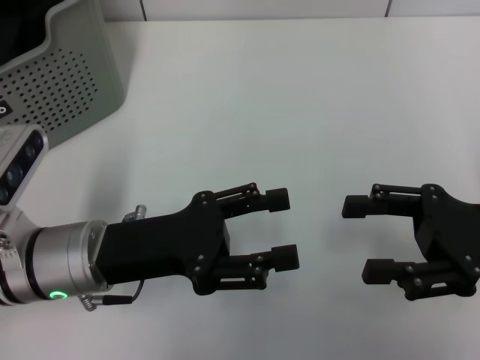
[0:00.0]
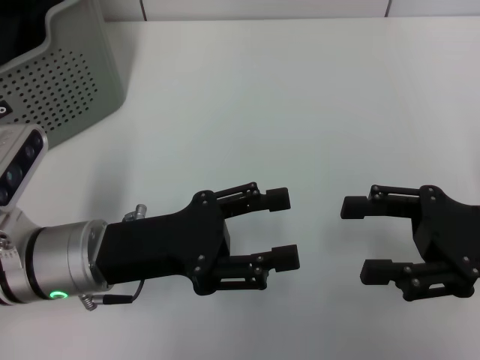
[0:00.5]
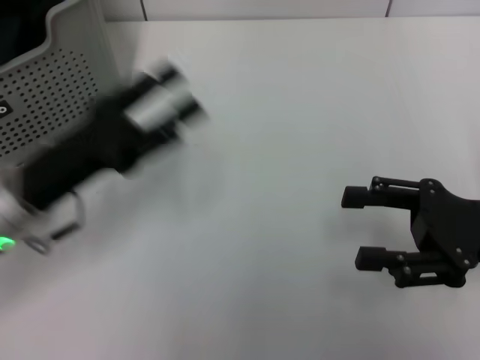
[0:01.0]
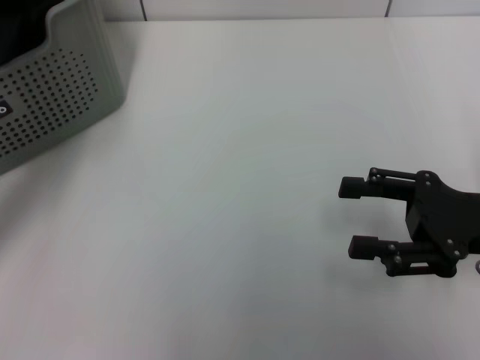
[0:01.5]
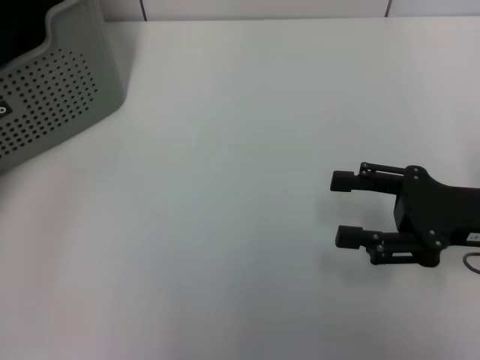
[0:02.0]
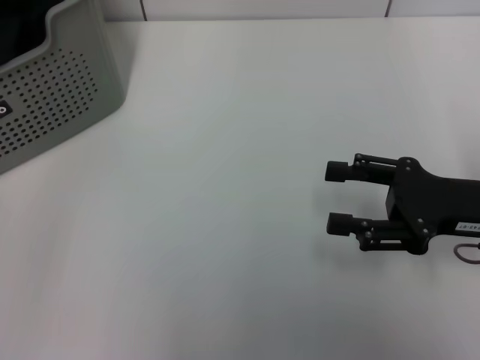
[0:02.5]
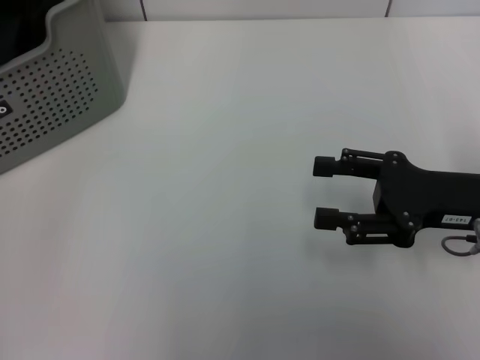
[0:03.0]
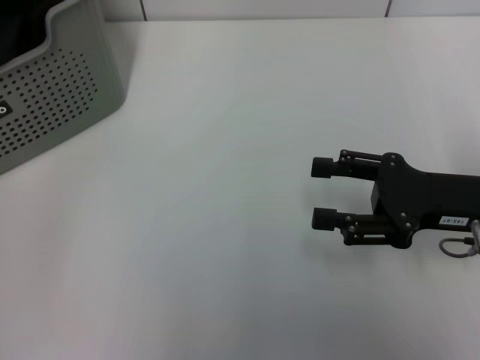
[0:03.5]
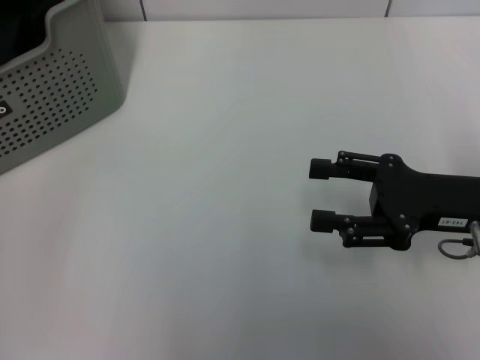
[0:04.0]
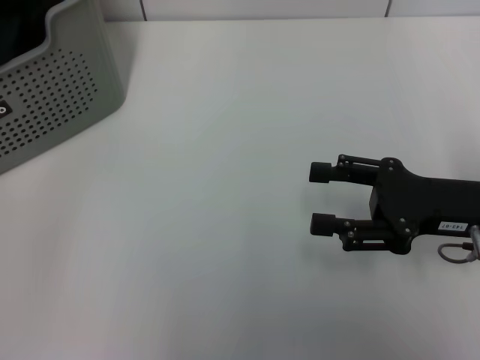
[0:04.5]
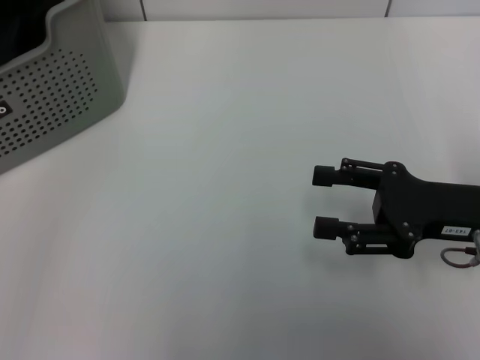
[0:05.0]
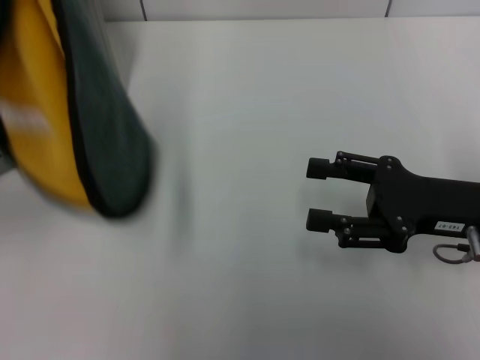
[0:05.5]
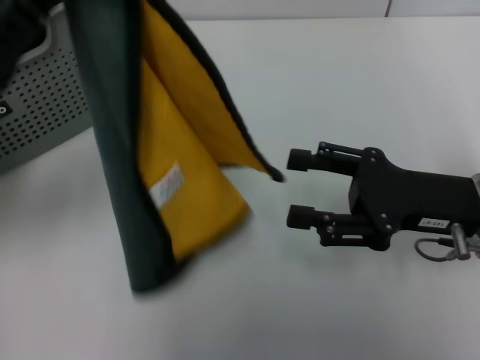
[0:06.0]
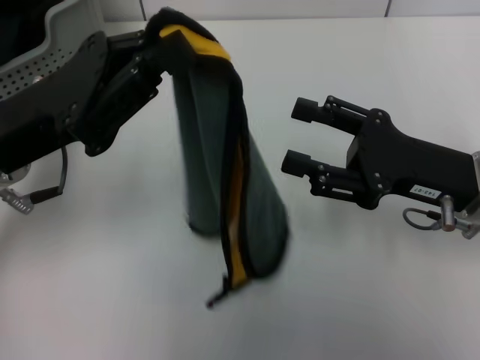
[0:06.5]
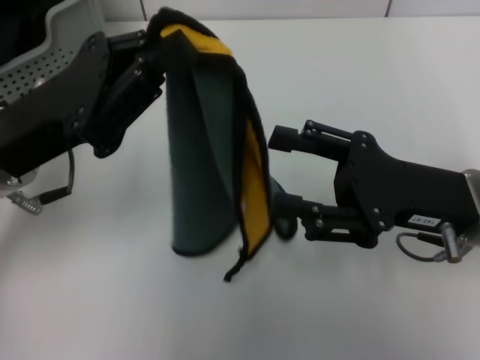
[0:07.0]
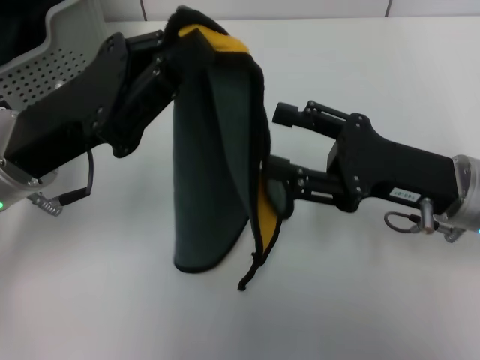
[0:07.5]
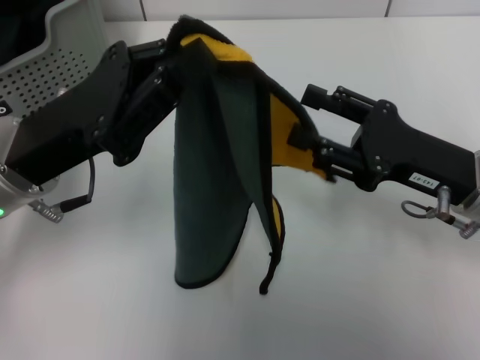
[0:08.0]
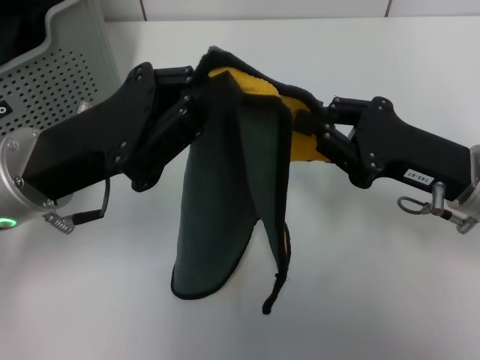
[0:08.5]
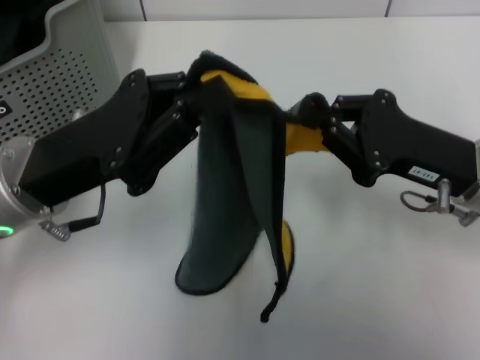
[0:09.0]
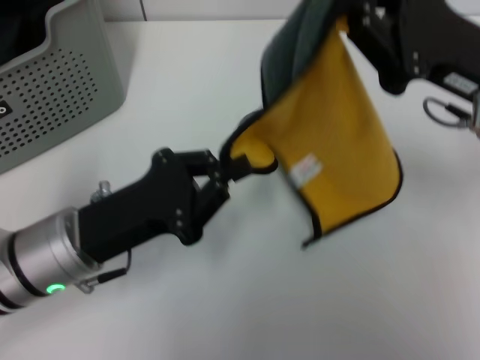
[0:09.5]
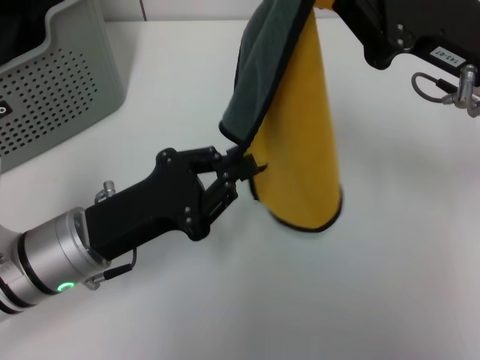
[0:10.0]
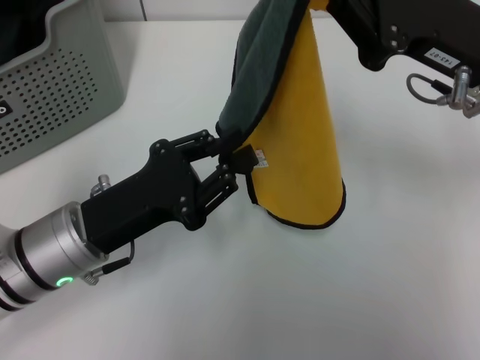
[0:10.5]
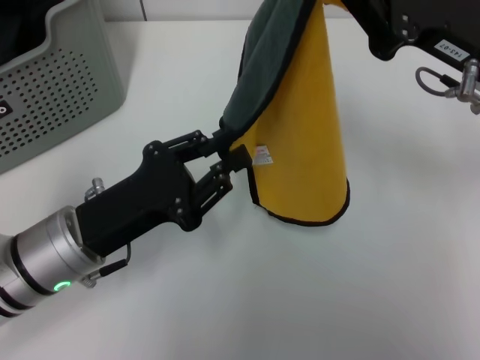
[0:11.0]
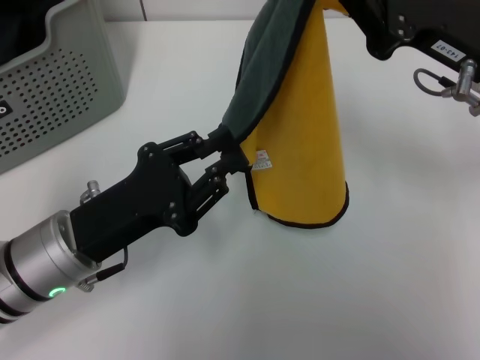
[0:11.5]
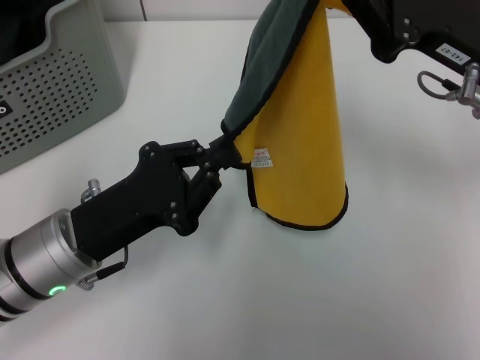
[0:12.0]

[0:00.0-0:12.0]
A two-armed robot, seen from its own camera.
Task of the whole recording: pick up the towel from the storage box and lay it flat on the table.
Step, 0:00.0 to 0:04.0: Pick up a towel with the left gripper.
Step, 0:04.5 to 0:08.5: Spread the towel flat with the left gripper.
0:00.0 to 0:02.0: The left gripper goes approximately 20 cm to the left, upward and forward.
0:02.0 to 0:04.0: The left gripper travels to the left by some 10 cm.
0:04.0 to 0:06.0: The left gripper is displaced to the right and backward by approximately 15 cm, and closes up.
0:06.0 to 0:08.0: The left gripper travels to the right by approximately 5 cm.
0:08.0 to 0:10.0: The right gripper heads upward, covering roughly 10 cm, and closes its fingers. Meanwhile the left gripper heads downward, covering approximately 10 cm.
0:10.0 to 0:12.0: The grippers move only a little.

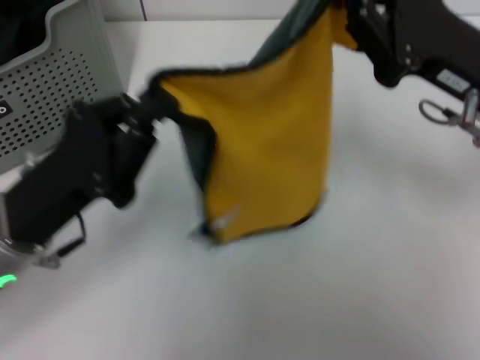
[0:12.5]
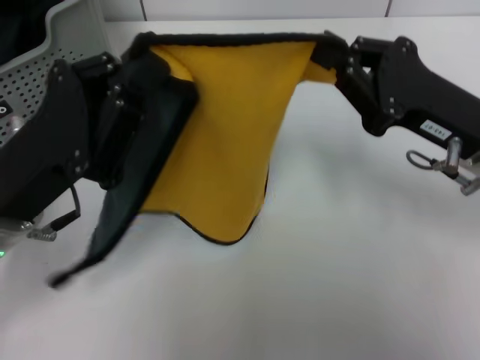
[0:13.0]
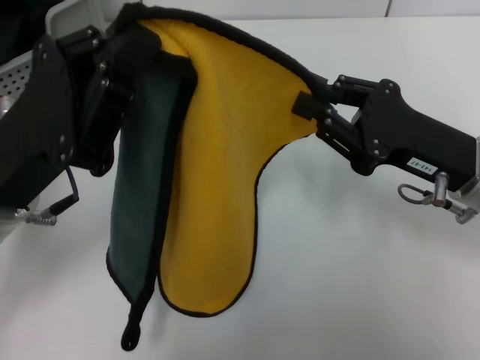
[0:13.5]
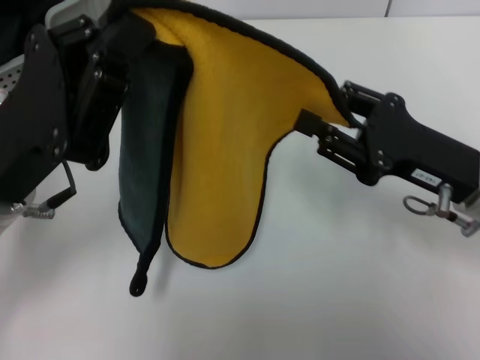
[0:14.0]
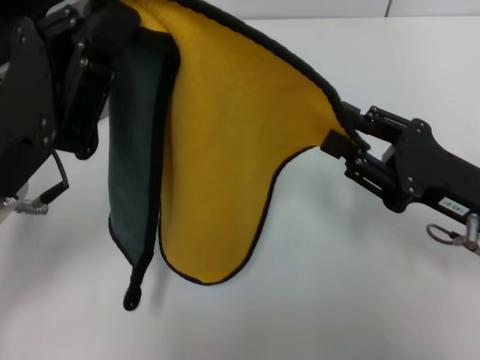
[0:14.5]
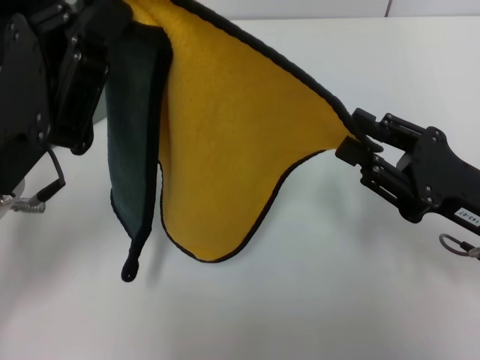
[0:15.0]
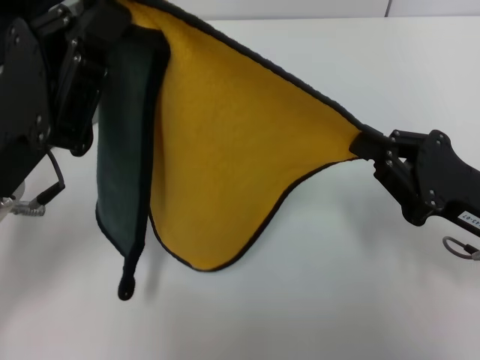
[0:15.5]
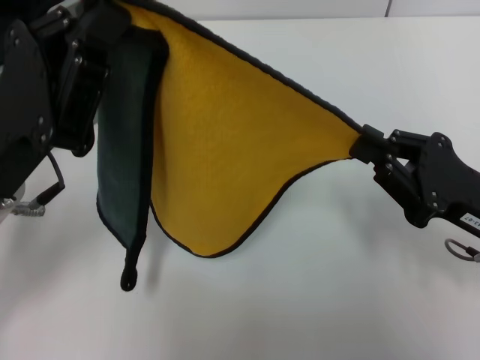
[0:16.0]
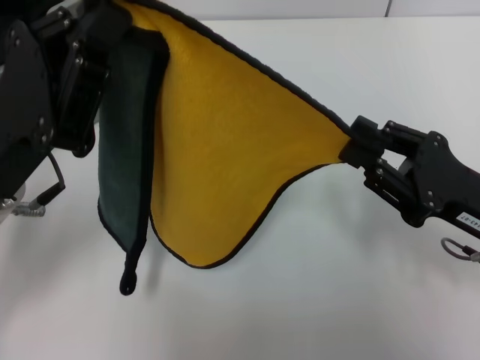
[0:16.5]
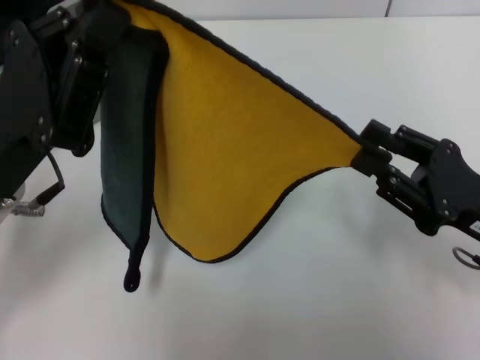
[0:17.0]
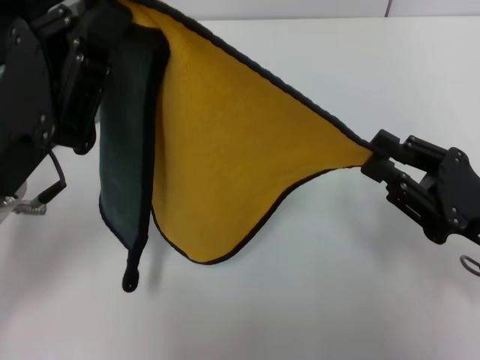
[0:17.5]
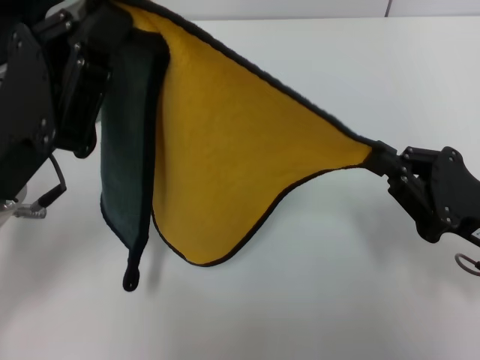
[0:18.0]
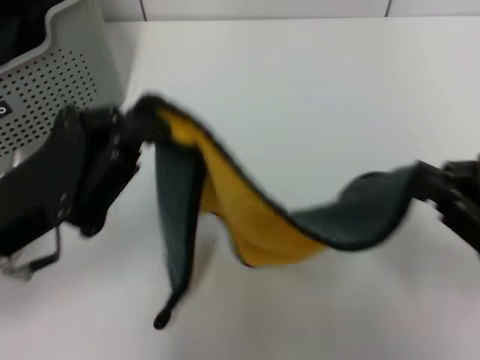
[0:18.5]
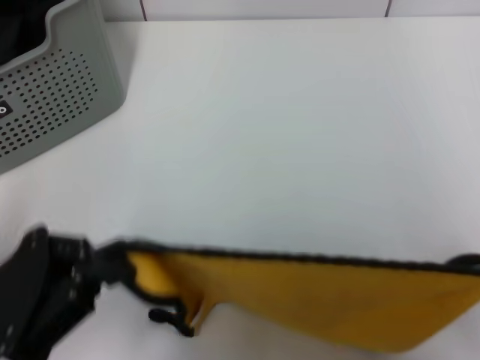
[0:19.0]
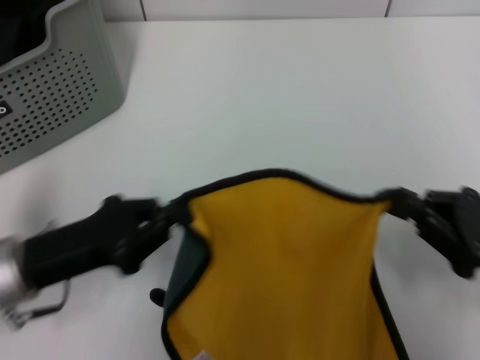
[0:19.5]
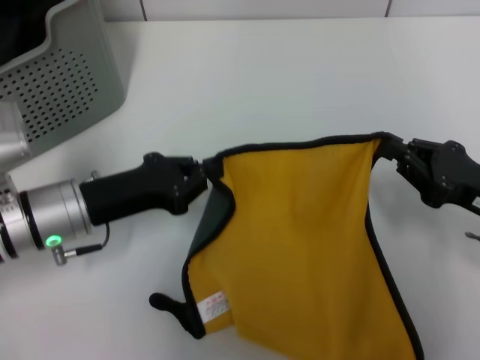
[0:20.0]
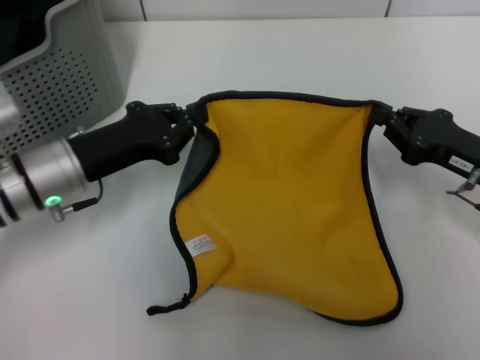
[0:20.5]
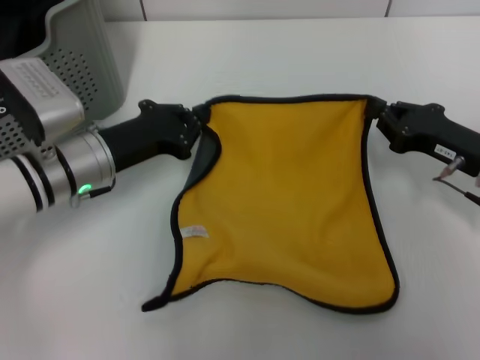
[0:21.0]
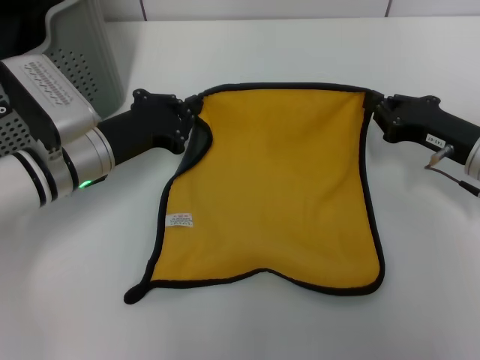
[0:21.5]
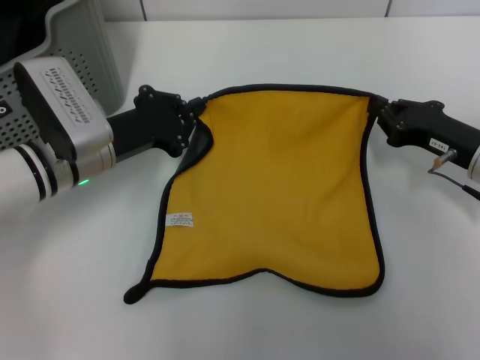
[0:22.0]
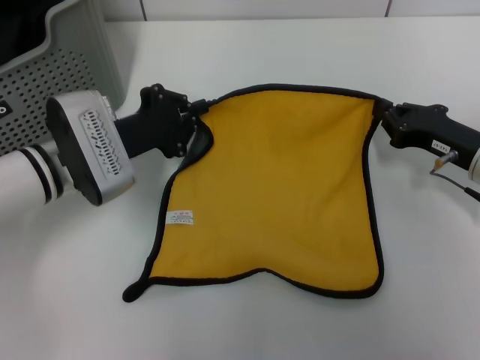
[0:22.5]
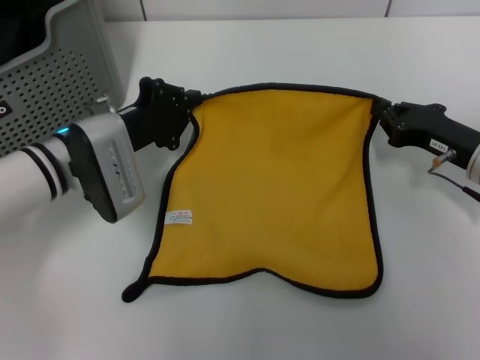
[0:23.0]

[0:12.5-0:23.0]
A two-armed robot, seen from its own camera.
Task of the whole recording: pick up the towel from the storage box and lay it flat on the table.
0:12.5 to 0:14.5: The right gripper goes roughly 10 cm downward and backward, and opens its fingers, while the left gripper changes place by approximately 5 cm.
0:14.5 to 0:16.5: The right gripper closes up.
0:16.5 to 0:19.0: The right gripper shifts roughly 10 cm to the right and backward, while the left gripper goes approximately 10 cm backward and to the left.
0:19.0 to 0:21.0: The two grippers go approximately 15 cm forward.

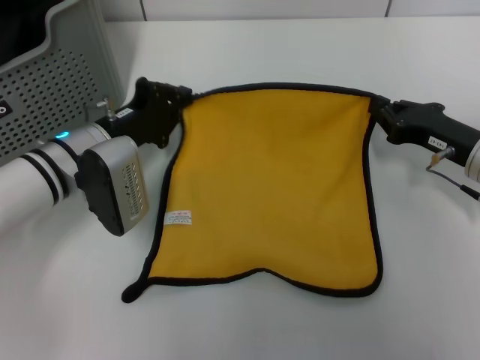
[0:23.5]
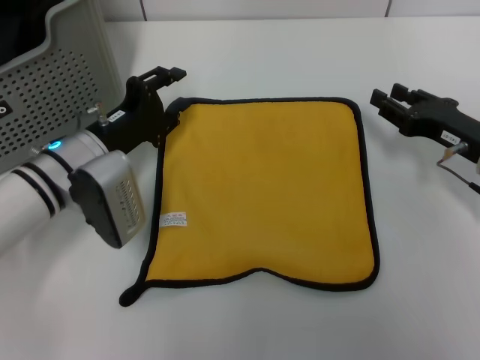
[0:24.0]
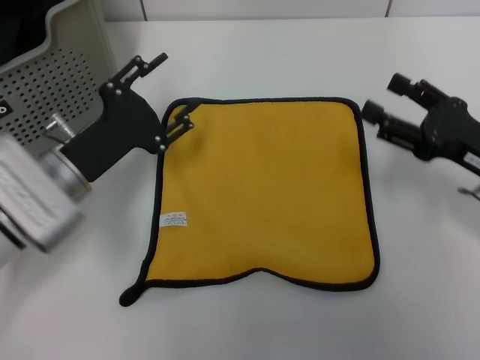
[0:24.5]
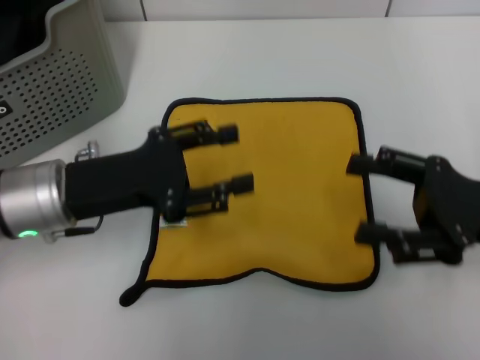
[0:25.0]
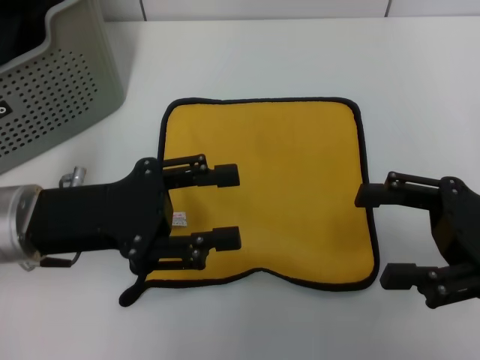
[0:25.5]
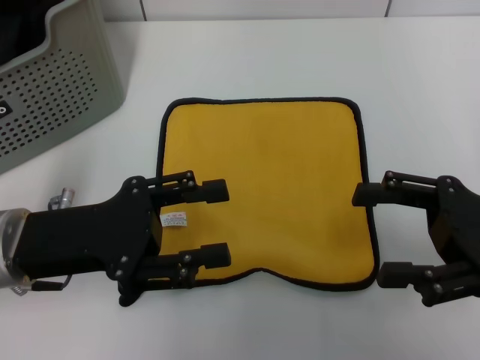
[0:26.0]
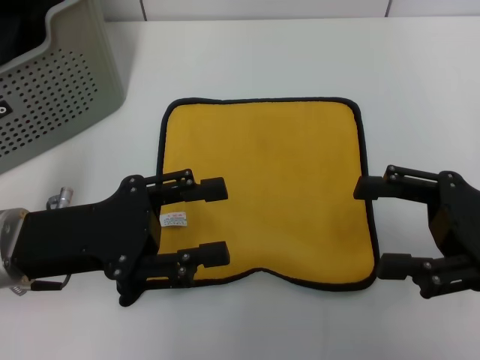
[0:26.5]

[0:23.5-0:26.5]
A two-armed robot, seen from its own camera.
Task of the whole recording: pick up the towel from the storage box and lay it flat on the table.
0:23.5 to 0:25.0: Both grippers move backward and upward, roughly 10 cm. The left gripper opens its fingers; the right gripper opens its fingers.
